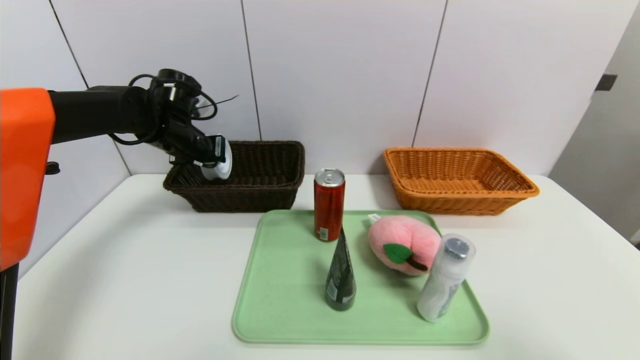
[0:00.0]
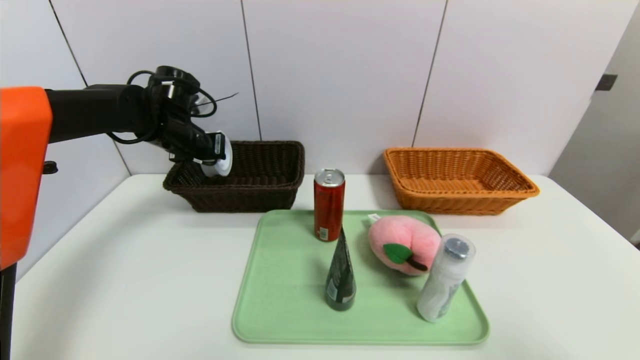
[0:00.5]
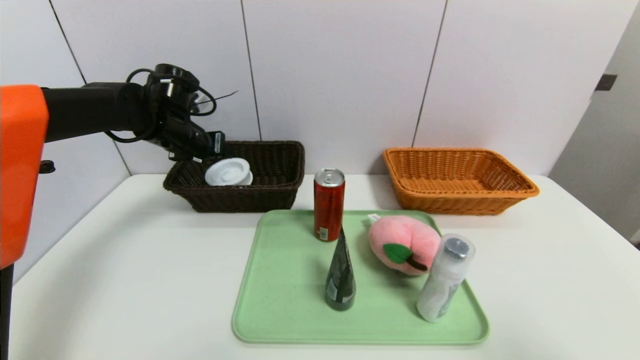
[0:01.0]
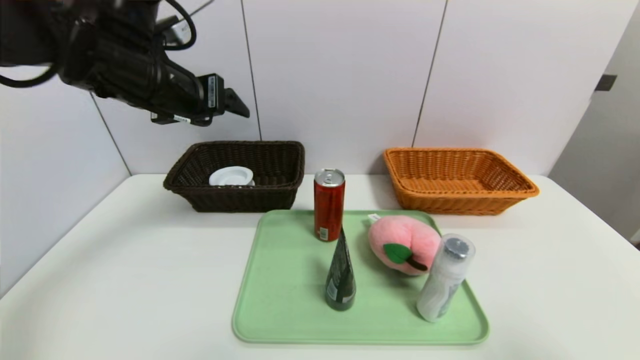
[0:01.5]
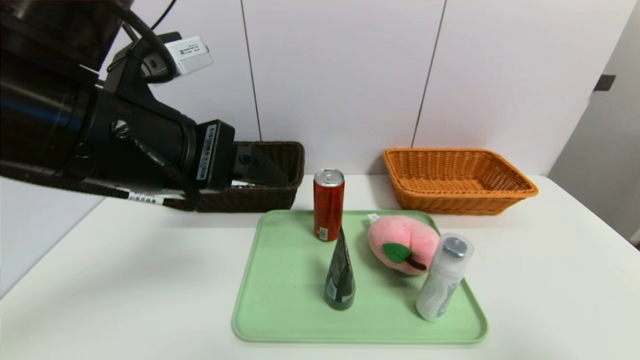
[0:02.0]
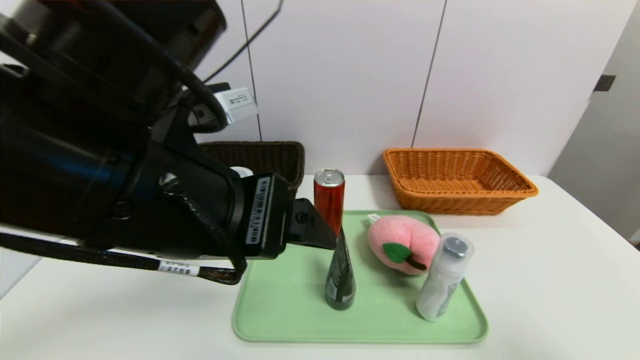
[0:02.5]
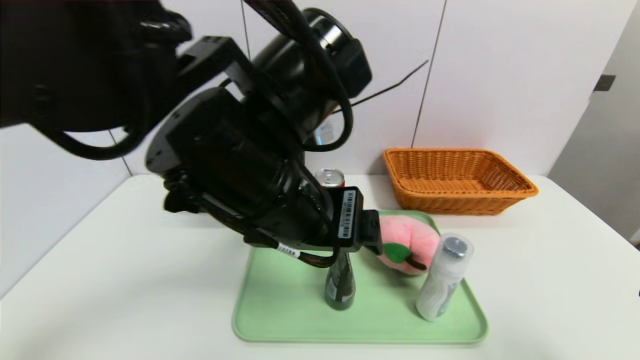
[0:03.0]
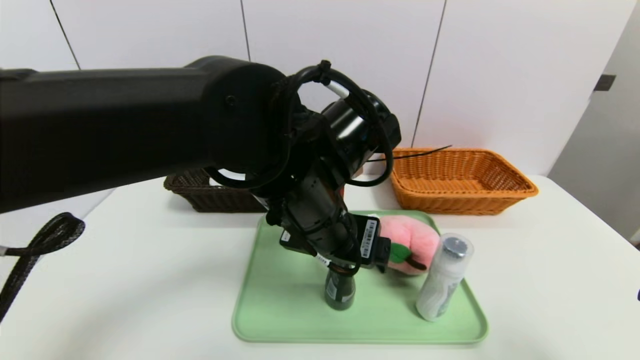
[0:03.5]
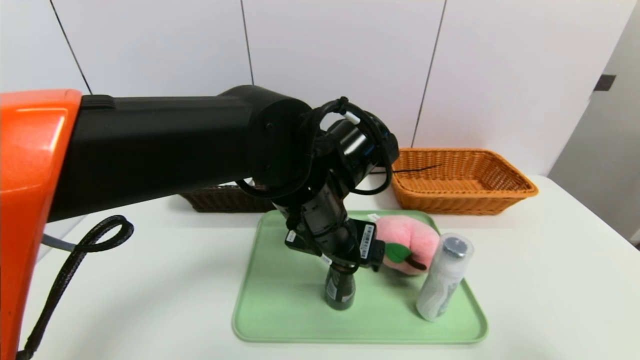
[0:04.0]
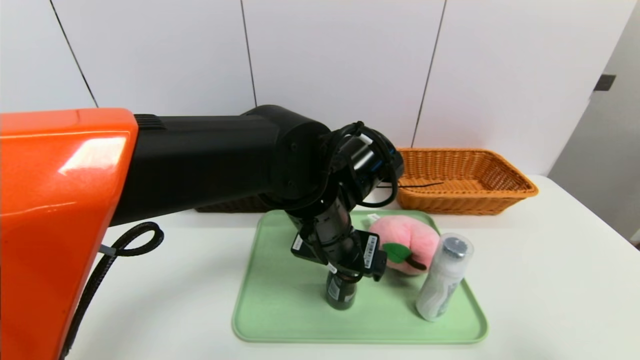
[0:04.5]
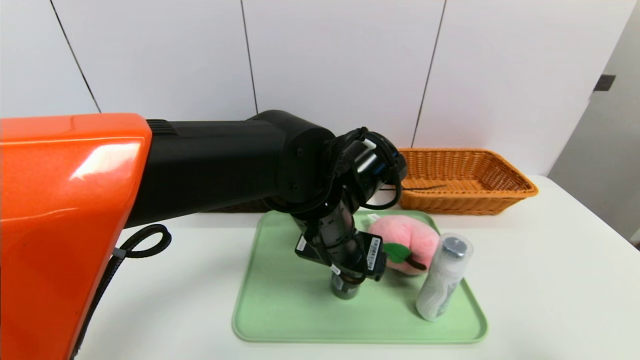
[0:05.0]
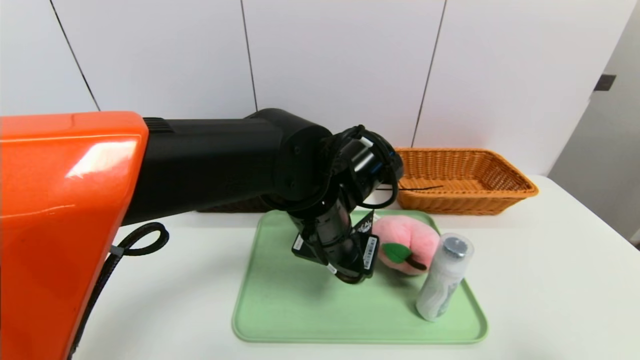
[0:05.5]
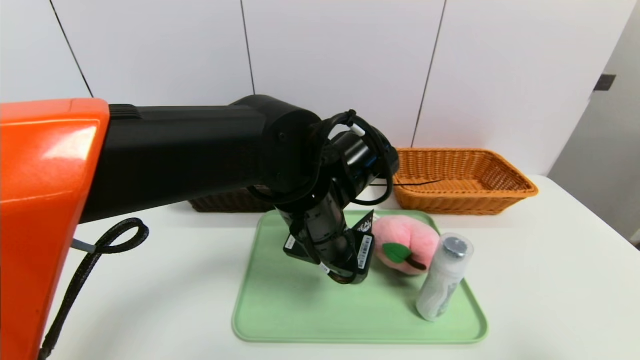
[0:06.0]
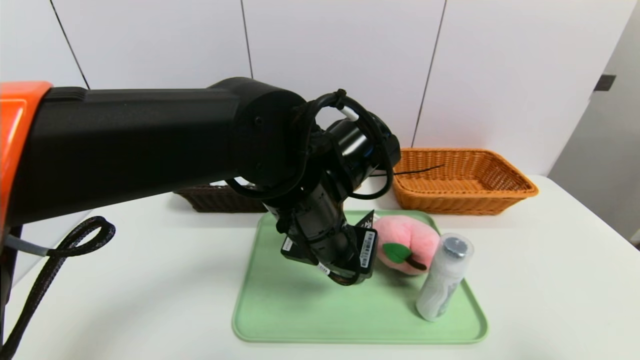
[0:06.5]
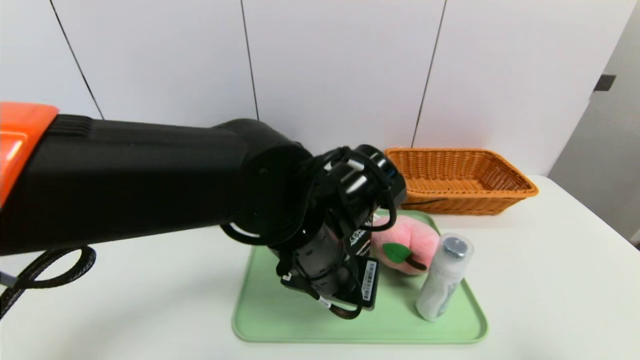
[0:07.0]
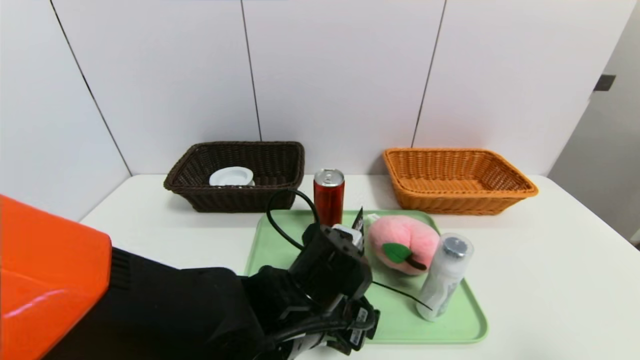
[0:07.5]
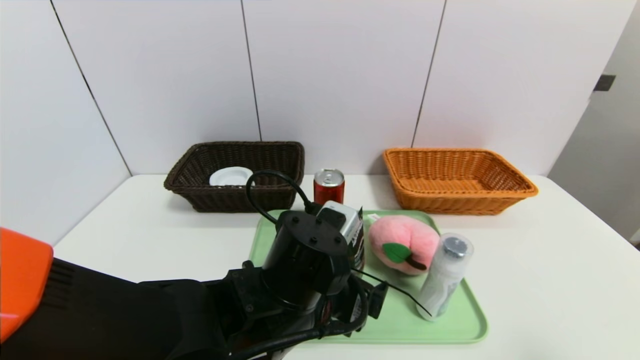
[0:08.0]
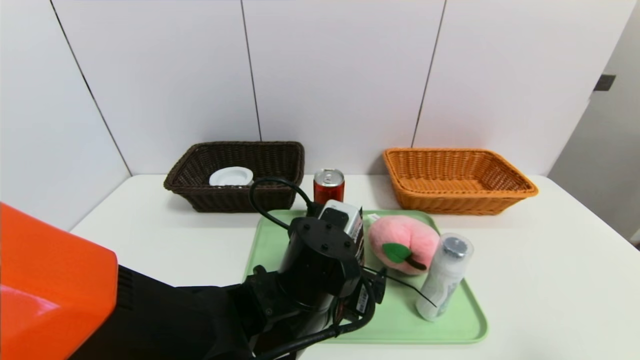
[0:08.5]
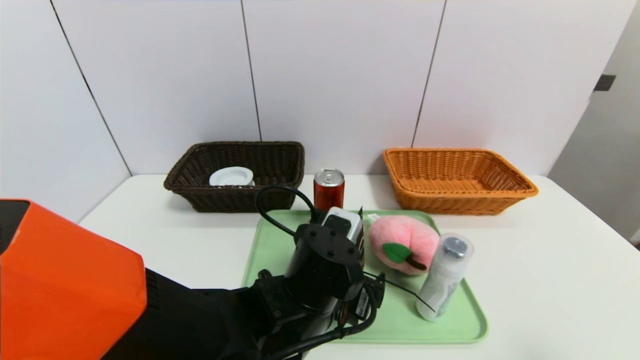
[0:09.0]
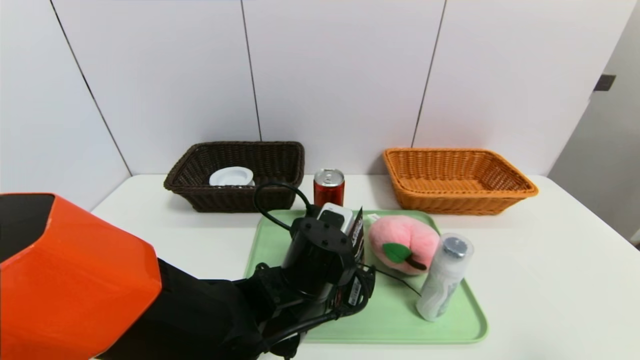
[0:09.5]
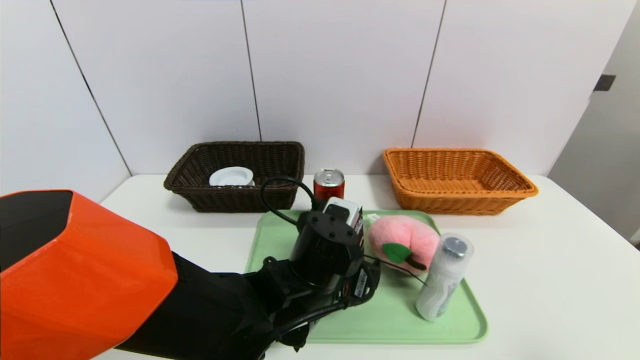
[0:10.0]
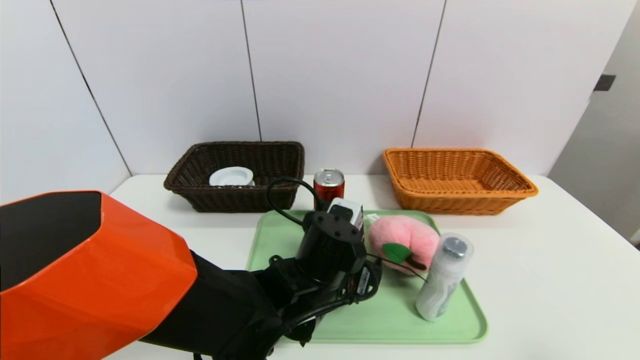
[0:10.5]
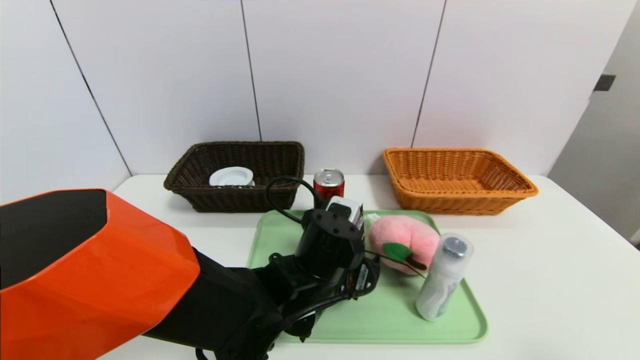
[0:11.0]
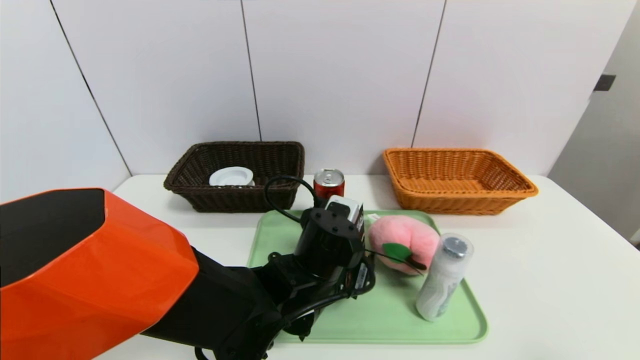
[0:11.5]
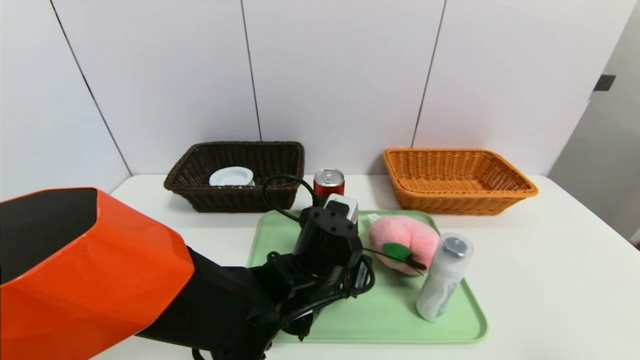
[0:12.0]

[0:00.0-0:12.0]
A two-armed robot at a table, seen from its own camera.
Task of the whole recording: place the food in the right basket with the right gripper, and place the non food items in the left basket with the left gripper.
0:00.0 to 0:02.0: The left gripper shifts about 30 cm backward and upward, and opens.
0:02.0 to 0:04.0: The left gripper shifts approximately 20 cm to the right, downward and forward.
0:04.0 to 0:06.0: The left gripper closes up.
0:06.0 to 0:08.0: The left gripper is displaced downward and backward by roughly 10 cm, and opens.
0:08.0 to 0:10.0: The left gripper shifts by approximately 5 cm.
0:10.0 to 0:12.0: The left gripper closes.

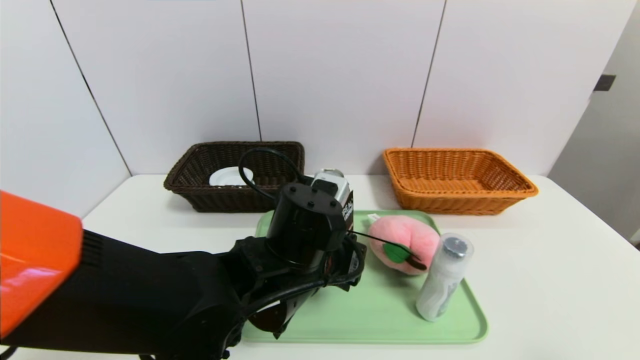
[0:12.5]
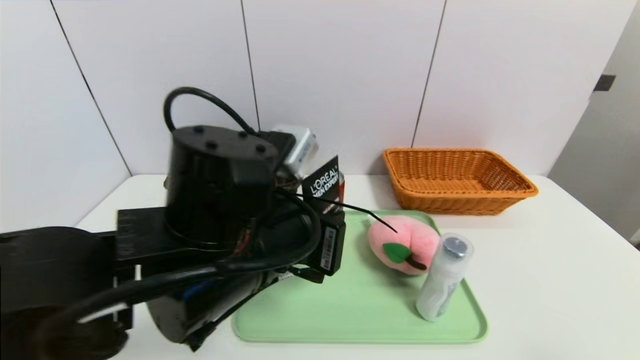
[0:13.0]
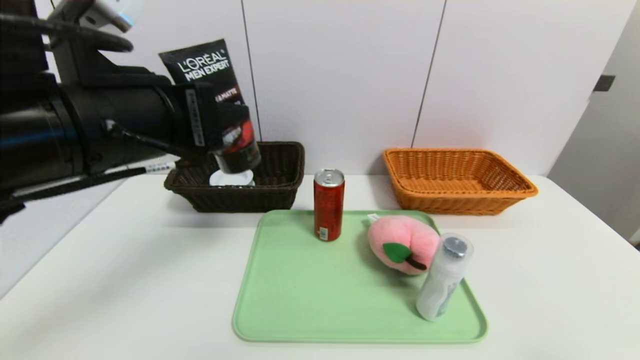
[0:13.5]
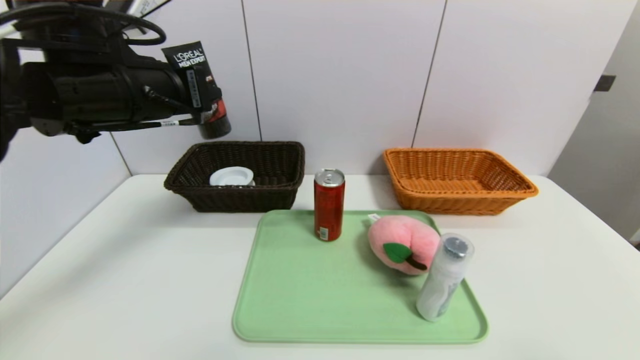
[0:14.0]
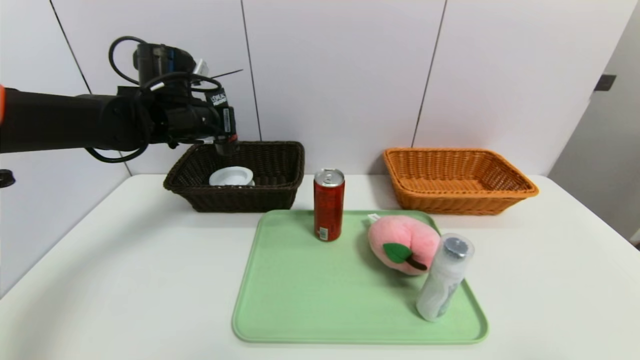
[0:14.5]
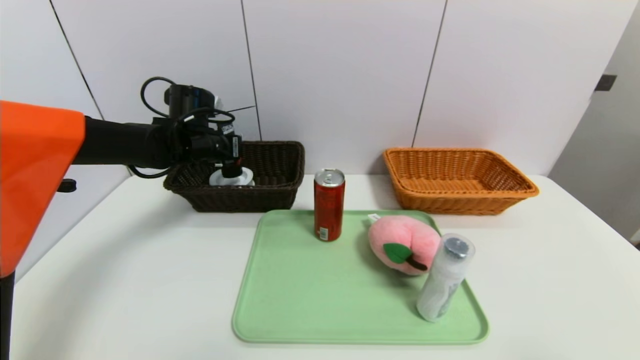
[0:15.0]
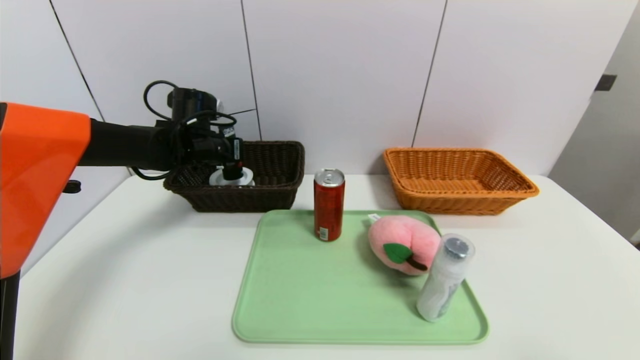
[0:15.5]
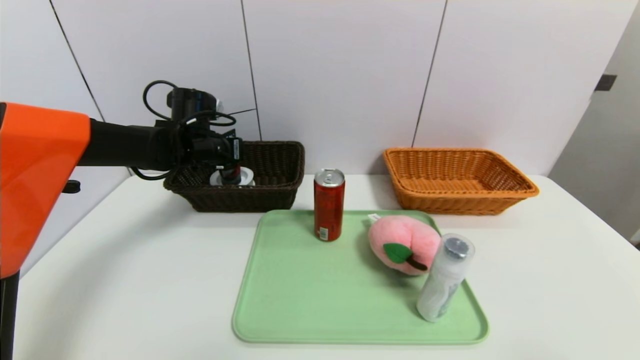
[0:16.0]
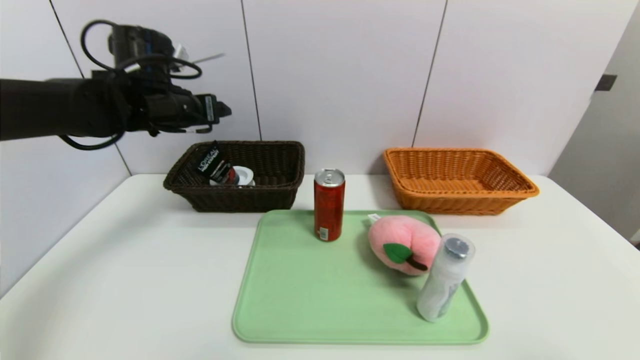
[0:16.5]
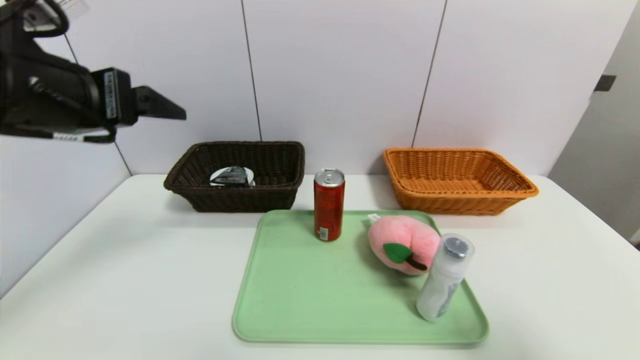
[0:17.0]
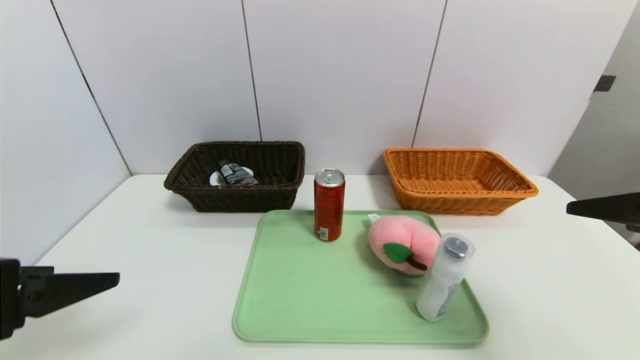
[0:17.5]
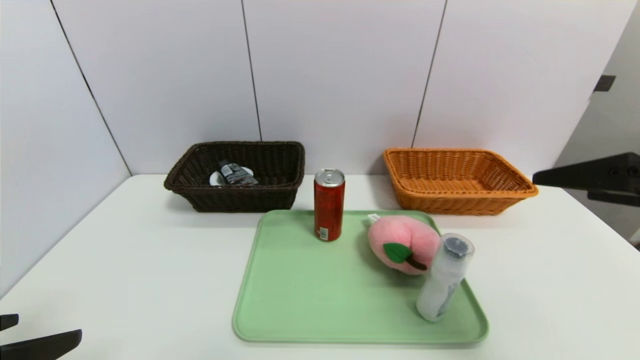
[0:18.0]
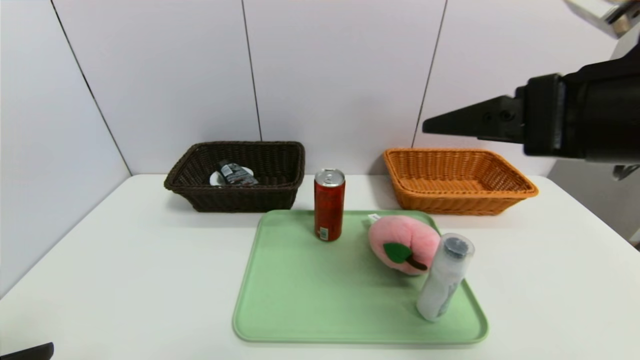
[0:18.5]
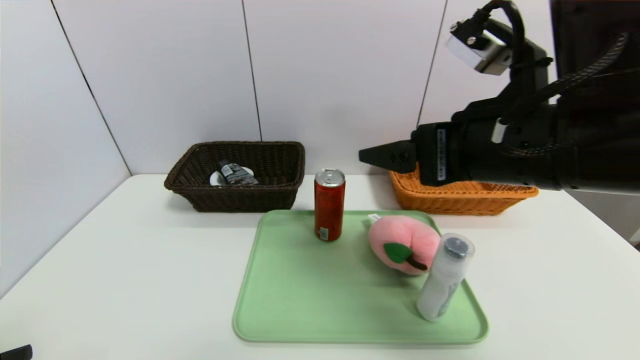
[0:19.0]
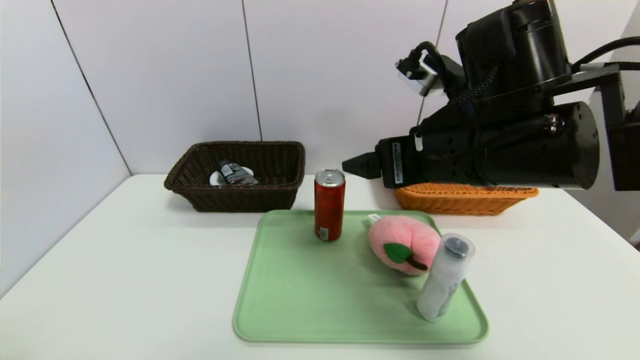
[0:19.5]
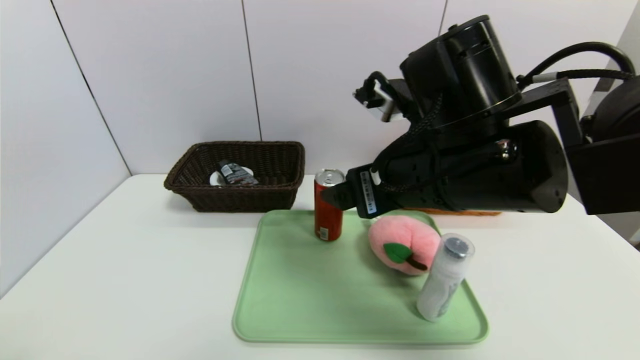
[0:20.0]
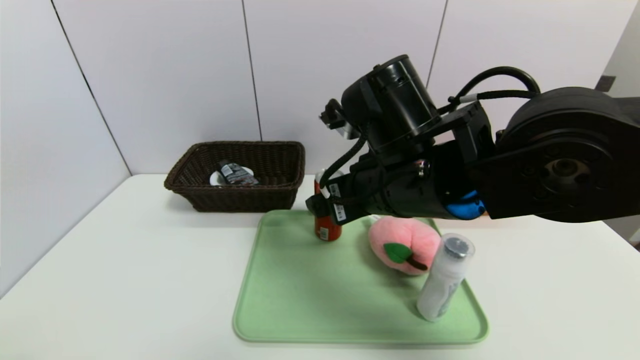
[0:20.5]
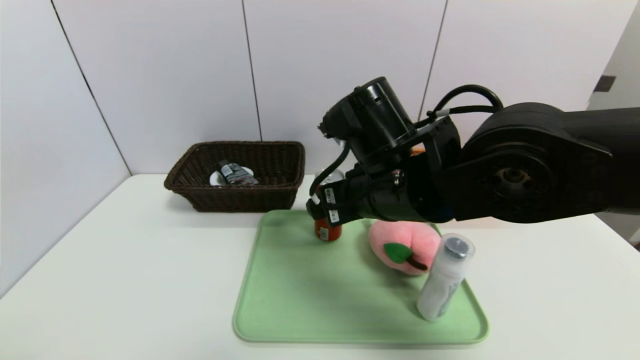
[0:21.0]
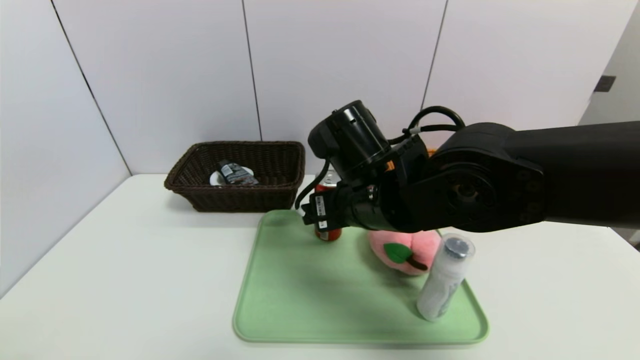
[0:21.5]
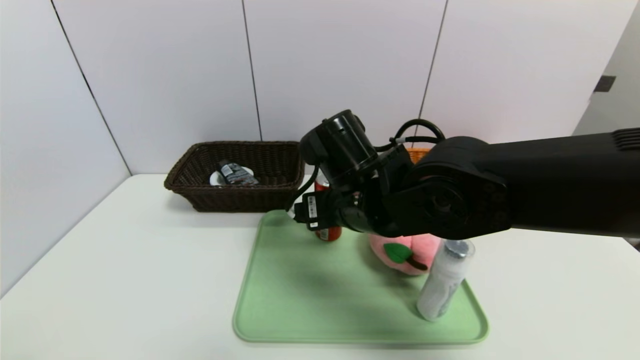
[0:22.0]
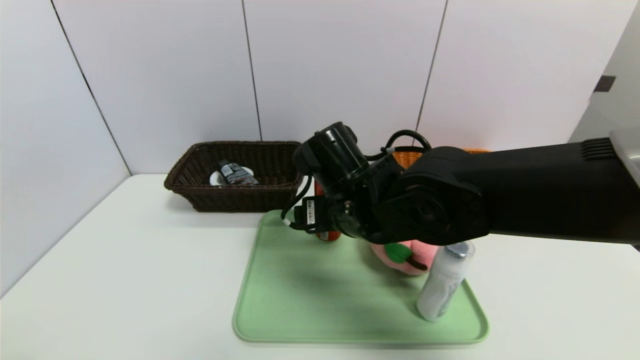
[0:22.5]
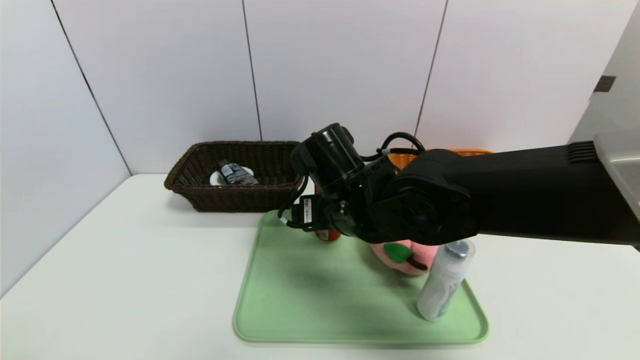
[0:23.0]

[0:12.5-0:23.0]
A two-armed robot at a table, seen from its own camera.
Task of the whole recording: place the food in the right basket with the right gripper, and place the non food items in the left basket with the left gripper.
Step, 0:12.5 to 0:16.5: Grasp the soft cleanser and put it in the left basket.
0:12.5 to 0:14.5: The left gripper goes some 30 cm forward, to the left and upward.
0:14.5 to 0:16.5: The left gripper opens its fingers.
0:16.5 to 0:19.0: The left gripper is displaced backward by about 35 cm; the right gripper moves forward, to the left and upward, roughly 25 cm.
0:19.0 to 0:21.0: The right gripper heads to the left and downward, covering about 10 cm.
0:21.0 to 0:23.0: The right gripper moves some 5 cm.
